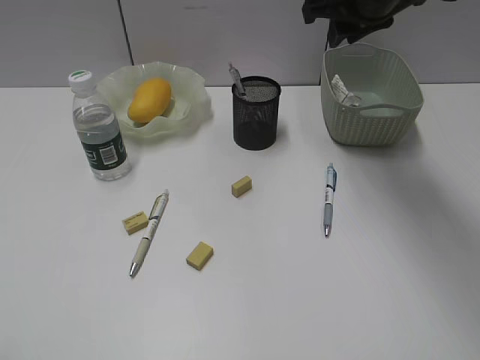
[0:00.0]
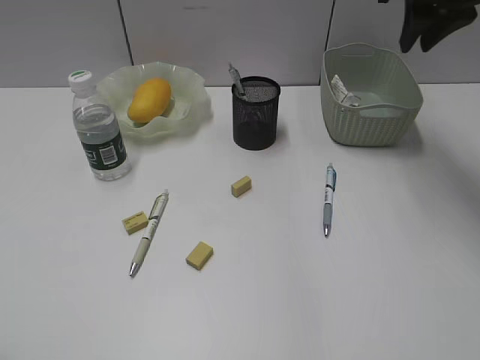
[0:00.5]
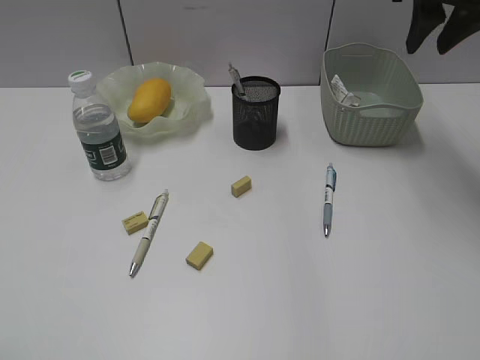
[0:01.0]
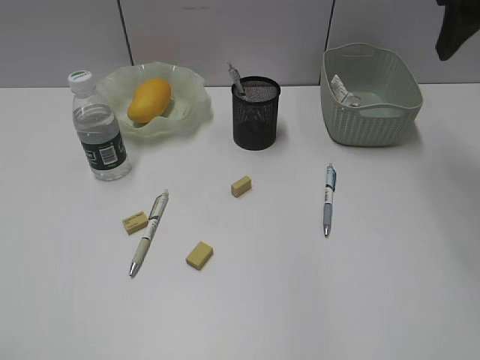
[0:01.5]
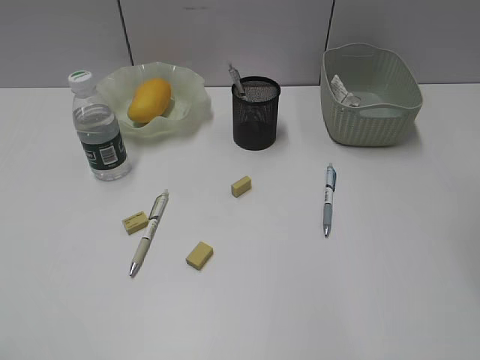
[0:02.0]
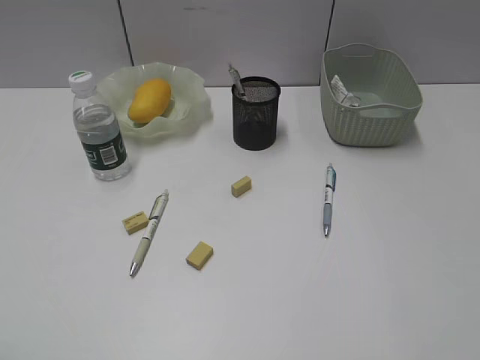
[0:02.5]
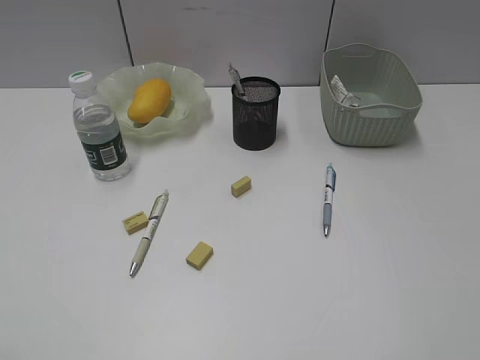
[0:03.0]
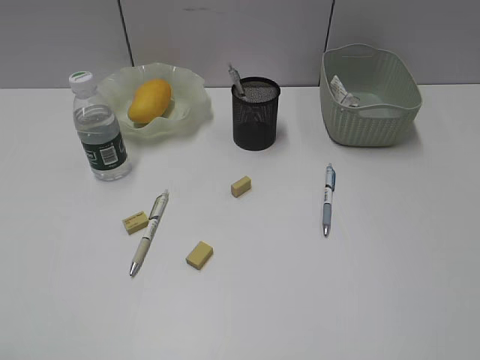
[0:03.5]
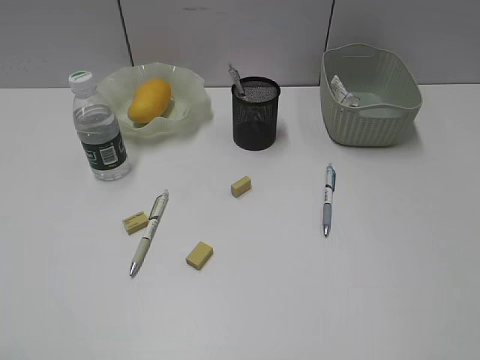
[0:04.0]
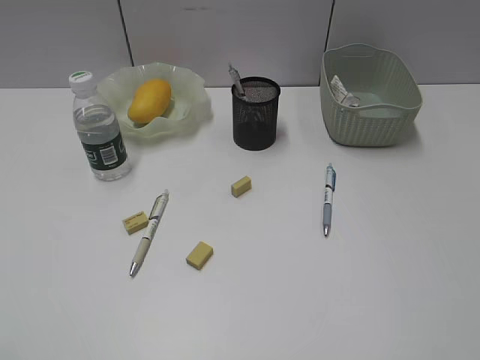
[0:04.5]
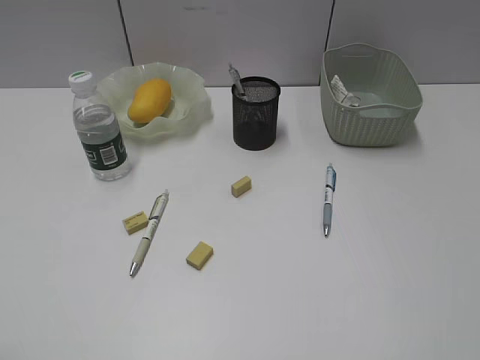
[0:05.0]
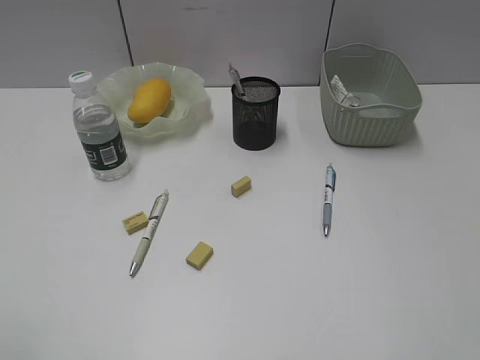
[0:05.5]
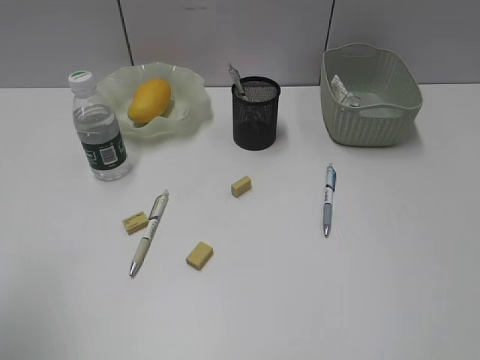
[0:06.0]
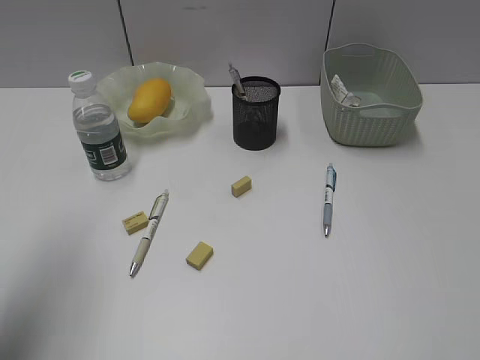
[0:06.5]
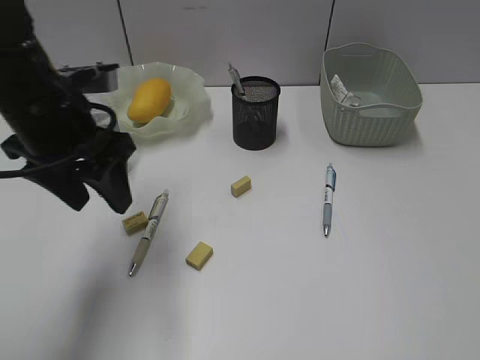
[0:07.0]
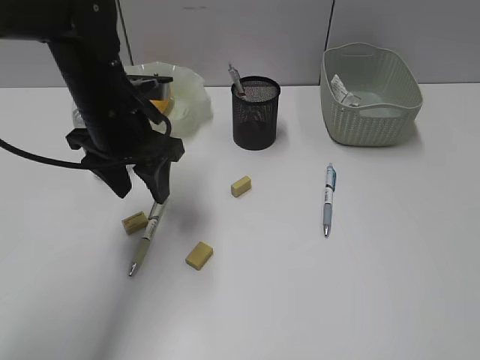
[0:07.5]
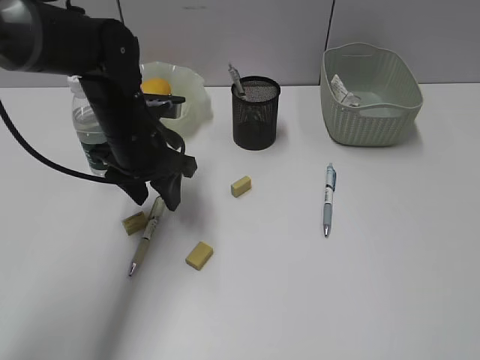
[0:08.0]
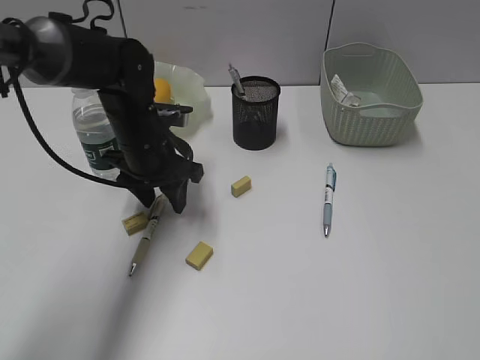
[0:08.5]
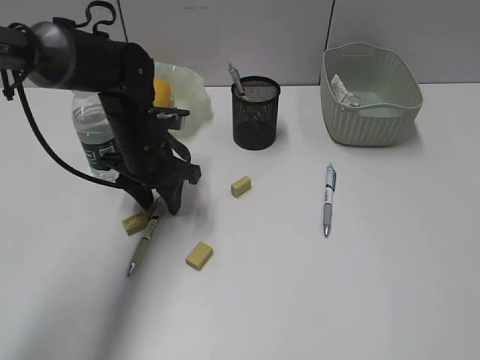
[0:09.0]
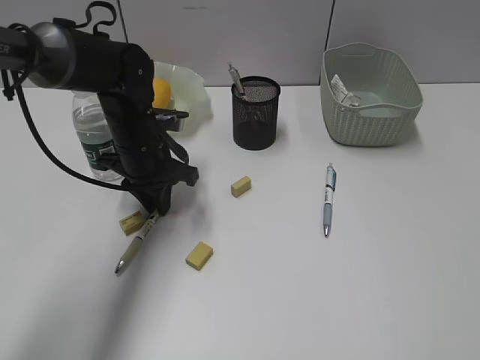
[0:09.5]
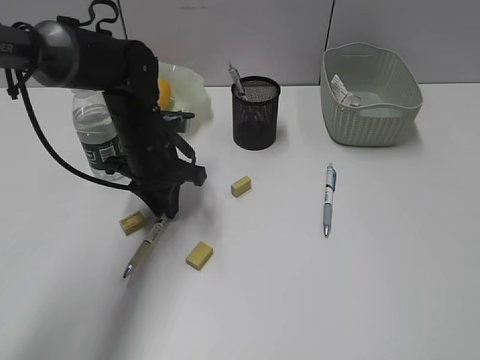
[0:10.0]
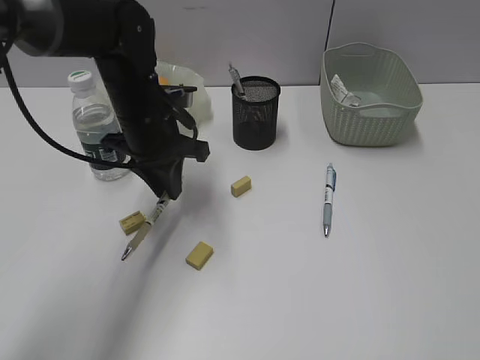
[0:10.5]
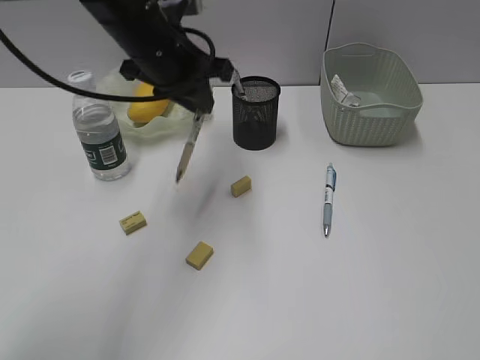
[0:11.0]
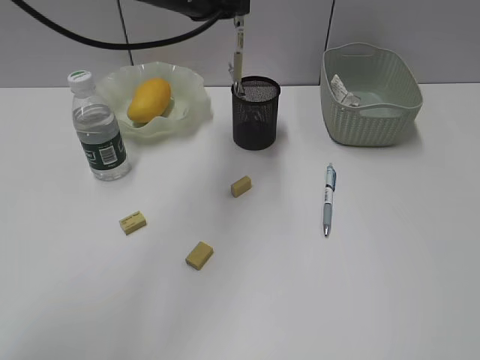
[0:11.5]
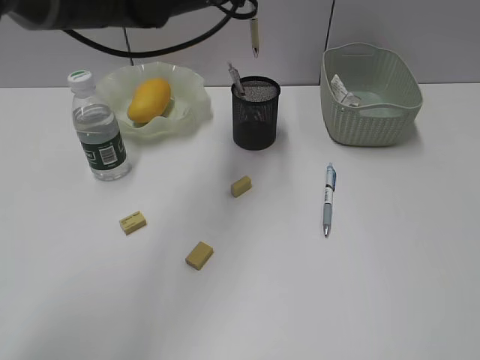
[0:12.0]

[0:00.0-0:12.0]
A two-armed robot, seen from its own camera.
Step, 0:00.0 to 0:09.5: Grasp the yellow pen with left gripper.
0:00.0 to 0:02.0: The right gripper heads backward and to the right, covering roughly 20 cm, and opens up.
0:04.0 to 0:06.0: The left gripper heads forward, covering approximately 10 cm, and opens up.
0:06.0 to 0:08.0: The left gripper moves forward, to the right and downward, approximately 35 cm.
0:08.0 to 0:10.0: The left gripper closes up.
0:10.0 to 0:12.0: The left gripper moves upward and to the right, about 20 cm.

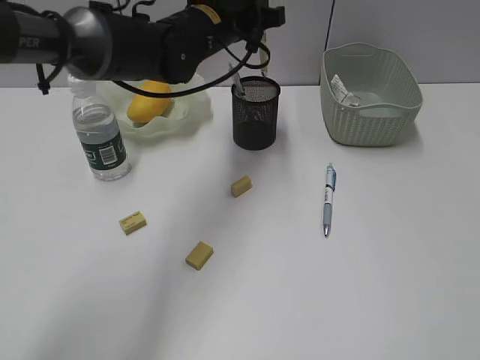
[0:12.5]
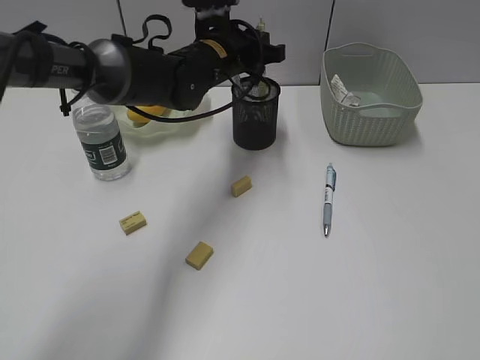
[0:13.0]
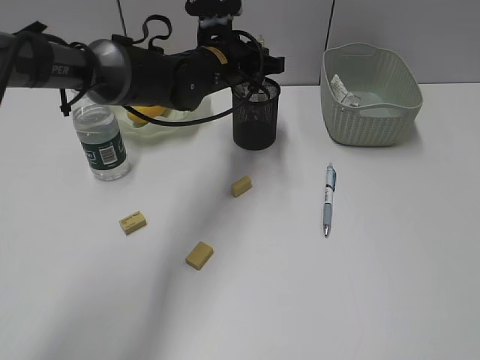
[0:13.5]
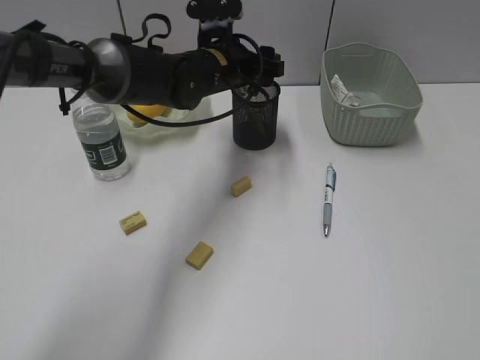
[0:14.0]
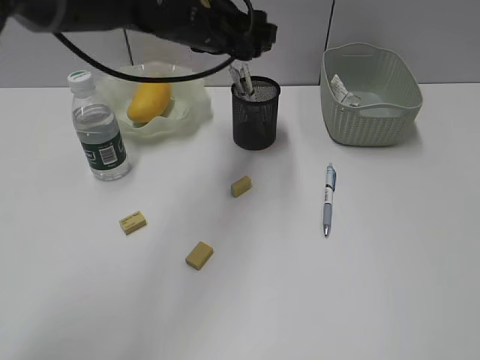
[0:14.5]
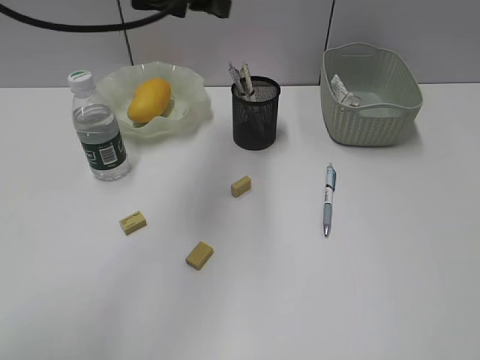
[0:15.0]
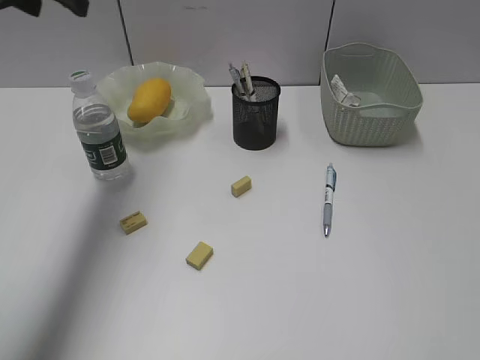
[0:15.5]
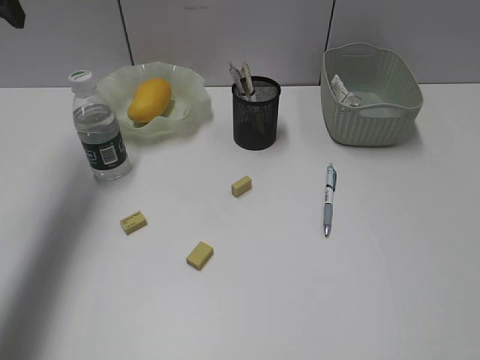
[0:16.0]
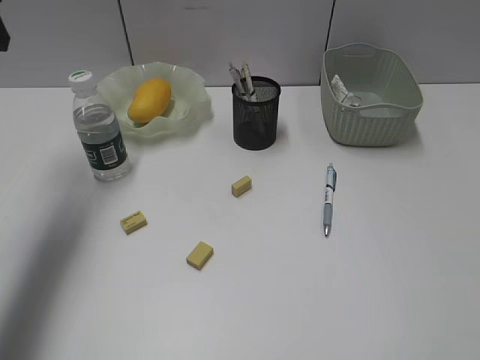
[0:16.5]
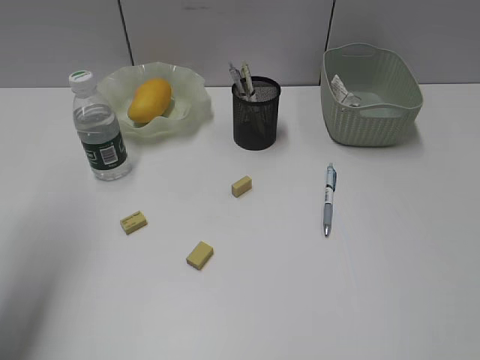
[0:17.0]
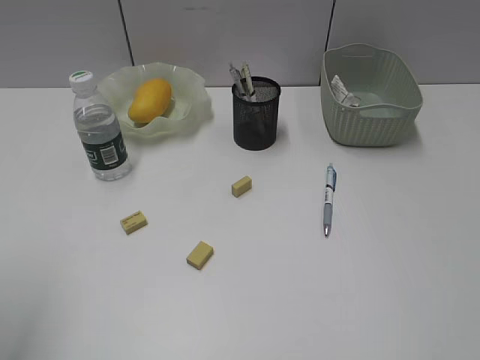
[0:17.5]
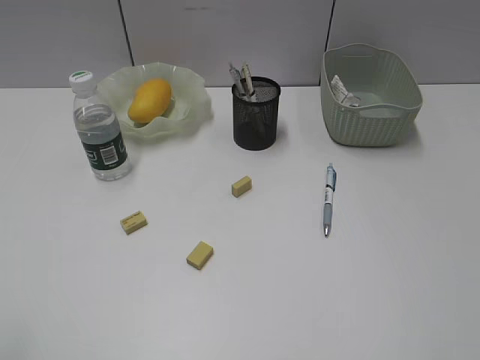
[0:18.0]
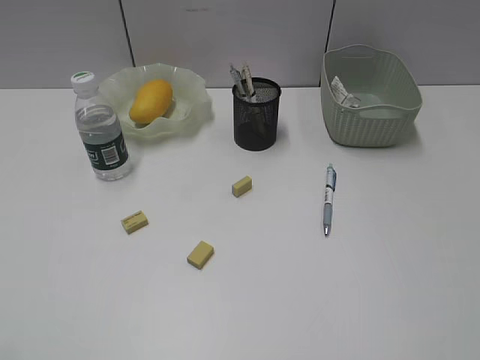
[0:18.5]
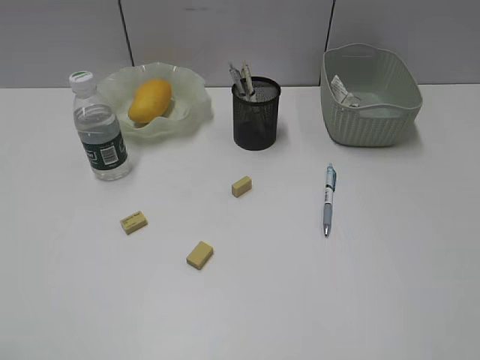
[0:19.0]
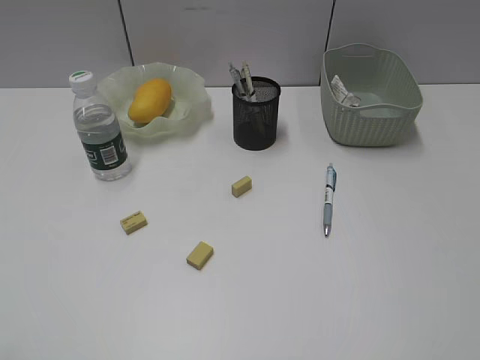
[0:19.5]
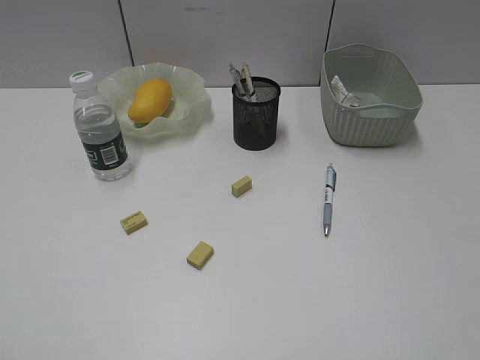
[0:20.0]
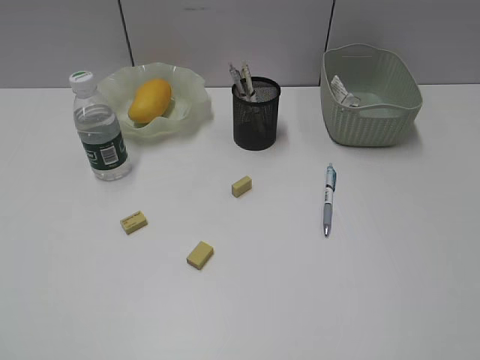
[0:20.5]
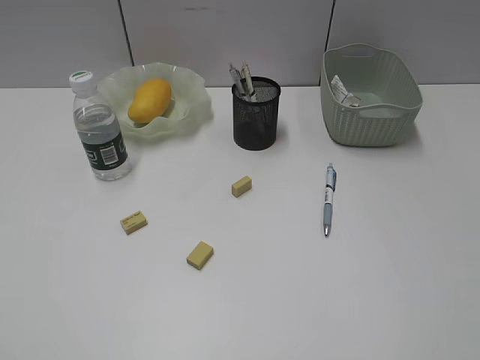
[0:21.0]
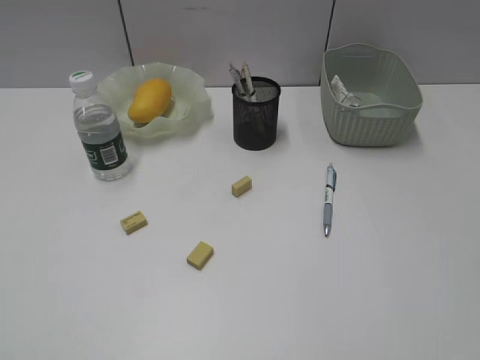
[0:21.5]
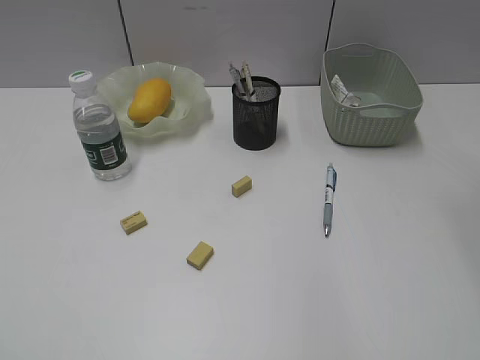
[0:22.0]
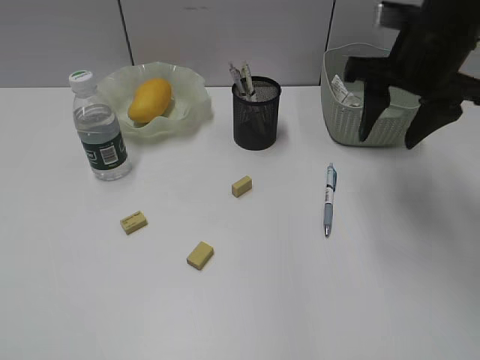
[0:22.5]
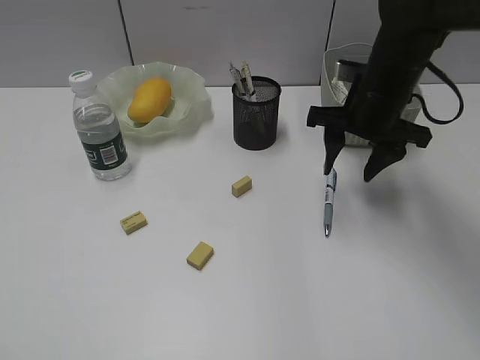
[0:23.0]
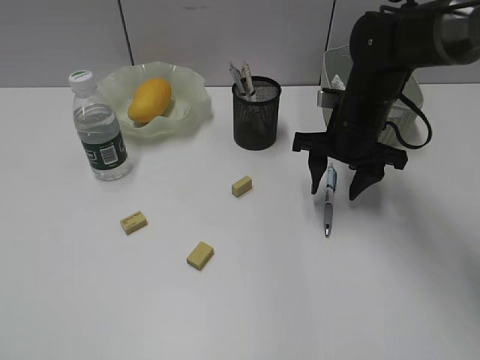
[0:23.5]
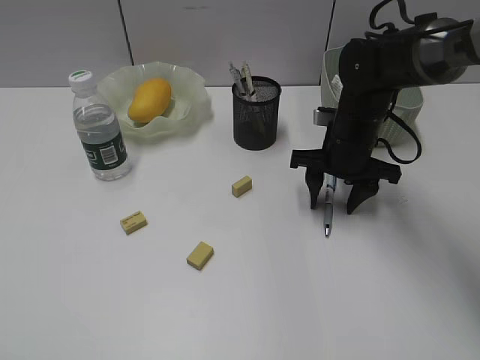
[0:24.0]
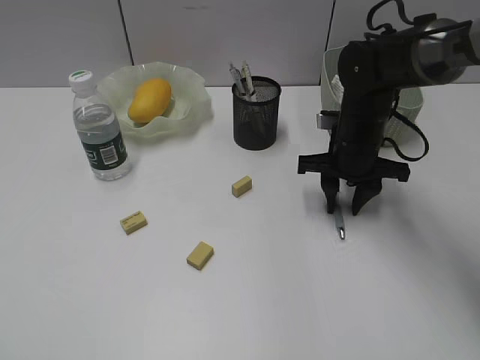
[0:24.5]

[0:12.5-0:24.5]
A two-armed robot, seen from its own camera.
0:12.5 to 0:14.5: The left gripper opens its fingers.
0:14.5 to 0:16.5: The left gripper goes about 25 cm to the left.
0:16.5 to 0:18.5: The left gripper heads backward, covering some 35 cm.
0:20.5 to 0:22.5: The right gripper travels forward by approximately 35 cm.
0:22.5 to 0:24.5: The right gripper is displaced downward by some 15 cm.

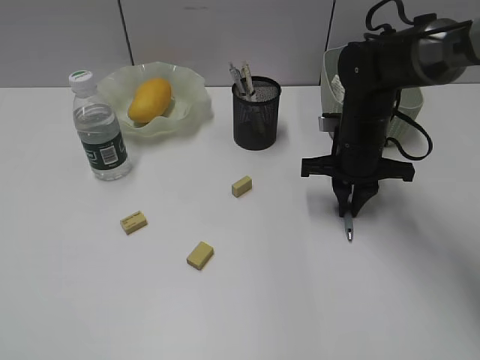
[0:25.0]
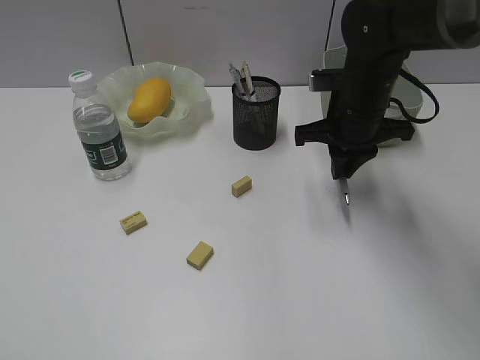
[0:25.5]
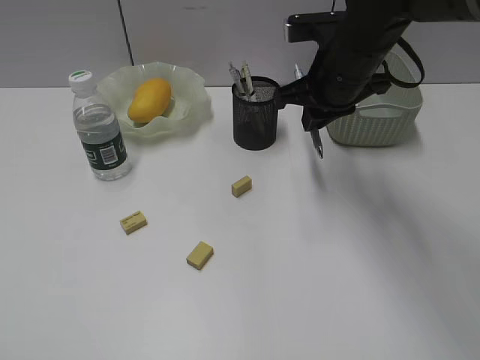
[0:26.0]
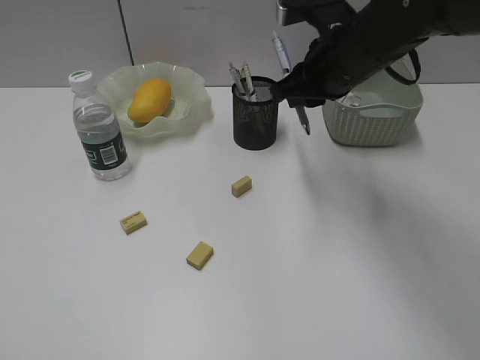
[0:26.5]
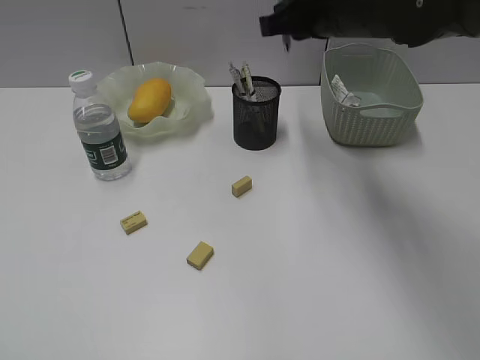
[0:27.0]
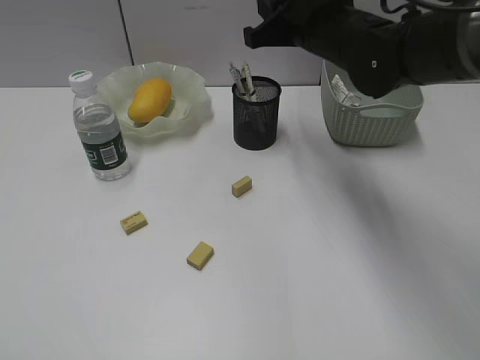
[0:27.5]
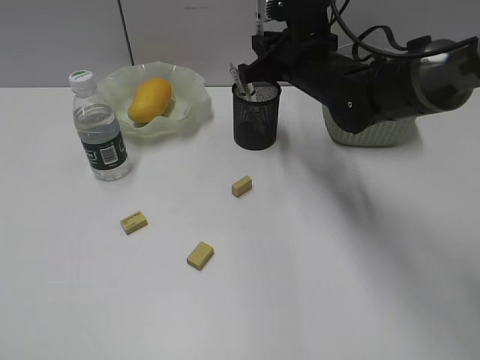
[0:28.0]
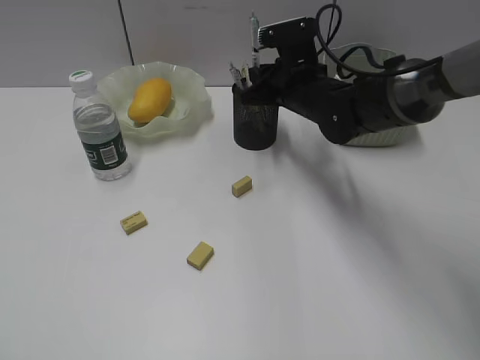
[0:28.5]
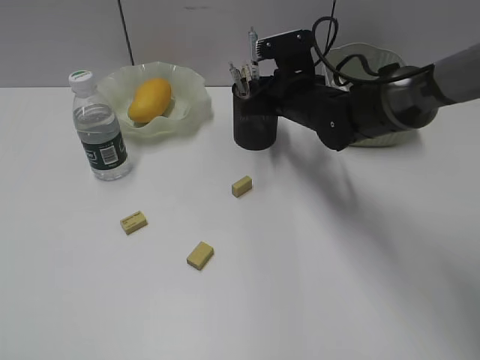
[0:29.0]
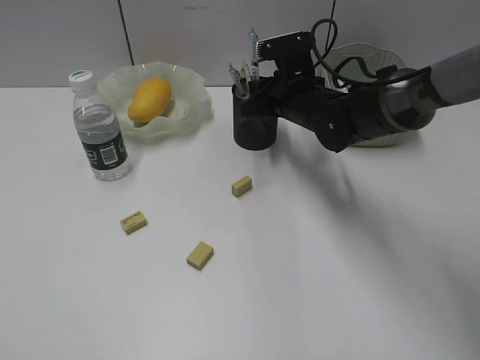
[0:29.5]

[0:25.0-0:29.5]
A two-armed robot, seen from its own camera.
0:25.0 to 0:27.0: The right gripper moves upward, about 15 cm.
0:27.0 to 0:29.5: The right gripper is displaced downward by some 15 cm.
